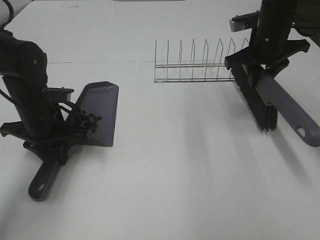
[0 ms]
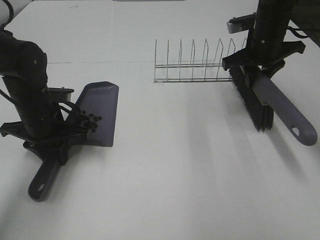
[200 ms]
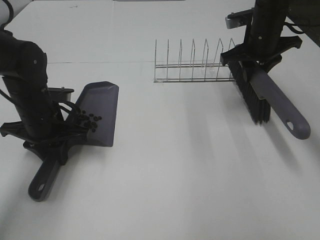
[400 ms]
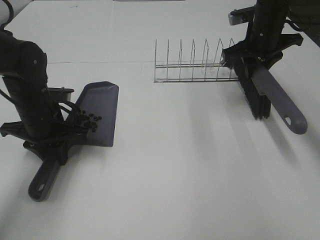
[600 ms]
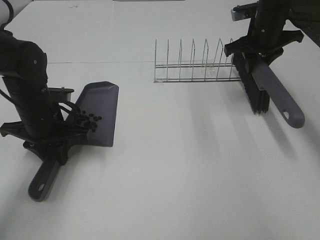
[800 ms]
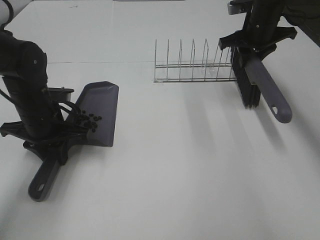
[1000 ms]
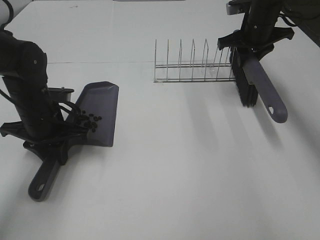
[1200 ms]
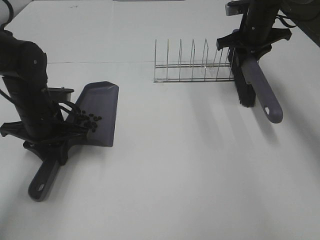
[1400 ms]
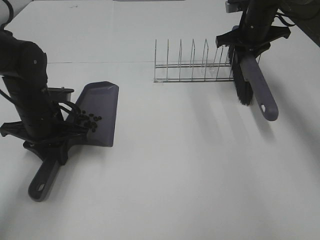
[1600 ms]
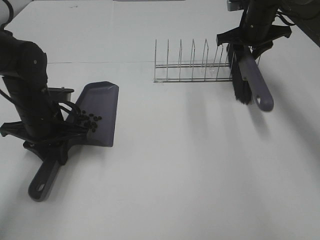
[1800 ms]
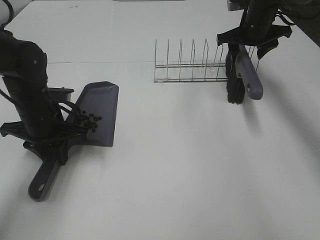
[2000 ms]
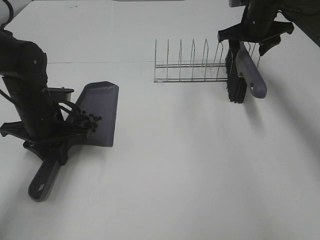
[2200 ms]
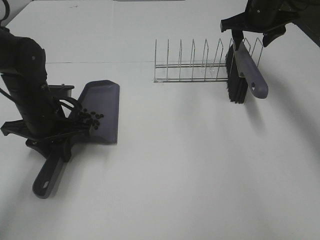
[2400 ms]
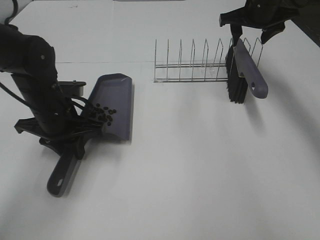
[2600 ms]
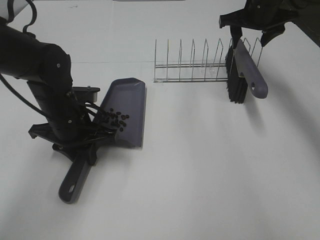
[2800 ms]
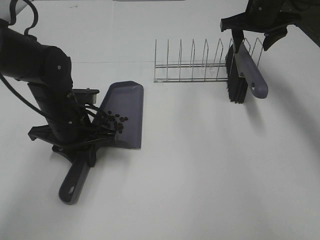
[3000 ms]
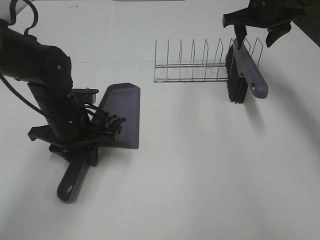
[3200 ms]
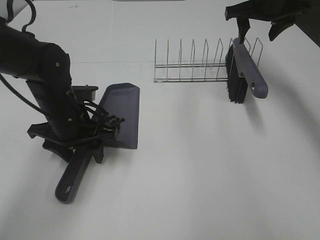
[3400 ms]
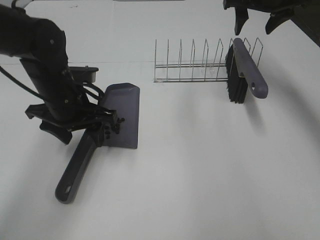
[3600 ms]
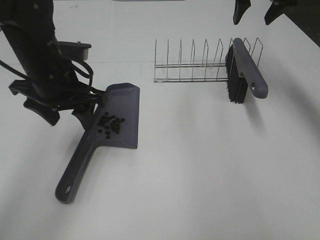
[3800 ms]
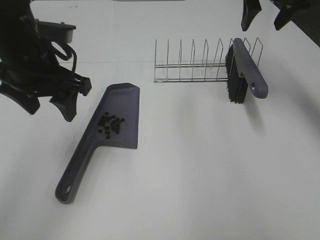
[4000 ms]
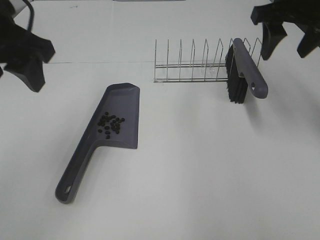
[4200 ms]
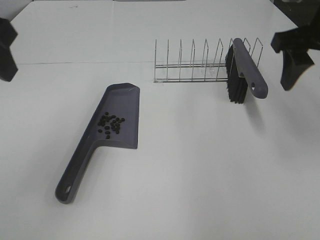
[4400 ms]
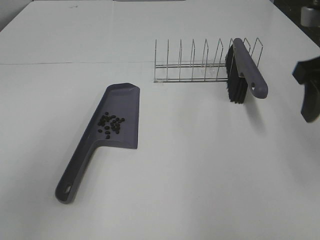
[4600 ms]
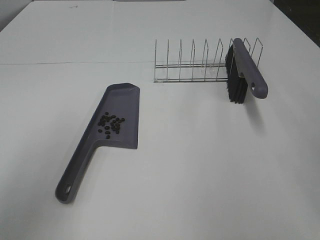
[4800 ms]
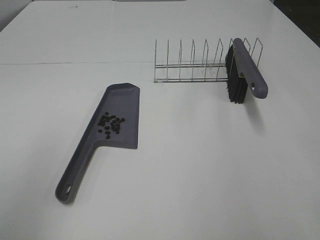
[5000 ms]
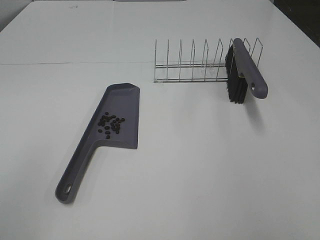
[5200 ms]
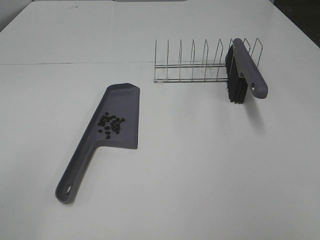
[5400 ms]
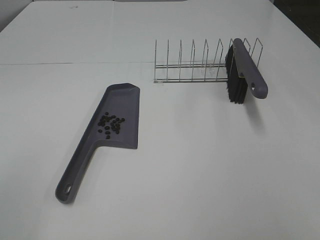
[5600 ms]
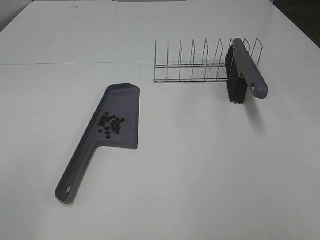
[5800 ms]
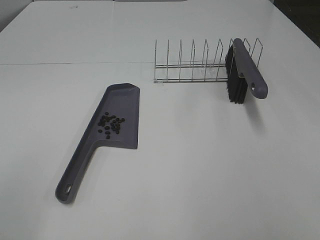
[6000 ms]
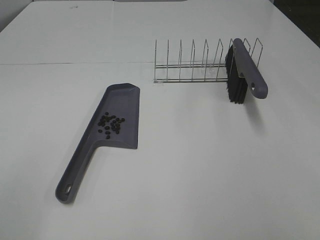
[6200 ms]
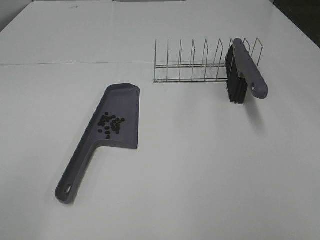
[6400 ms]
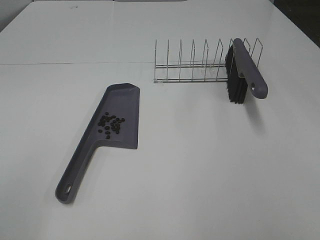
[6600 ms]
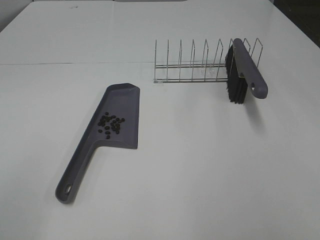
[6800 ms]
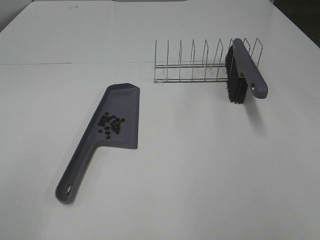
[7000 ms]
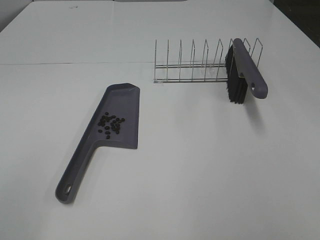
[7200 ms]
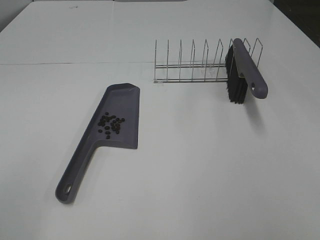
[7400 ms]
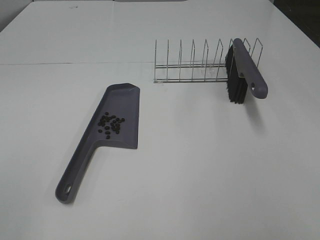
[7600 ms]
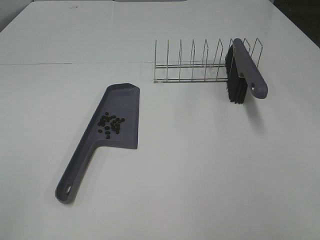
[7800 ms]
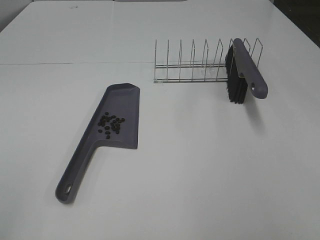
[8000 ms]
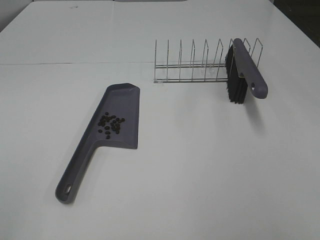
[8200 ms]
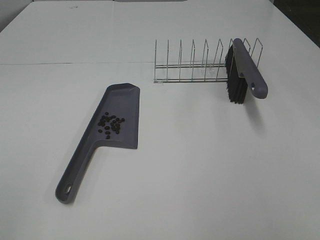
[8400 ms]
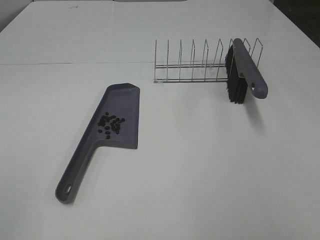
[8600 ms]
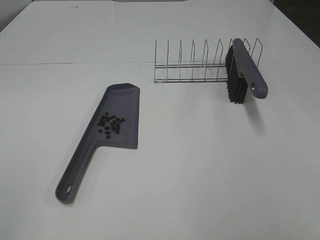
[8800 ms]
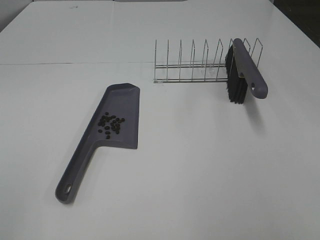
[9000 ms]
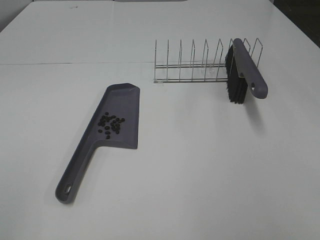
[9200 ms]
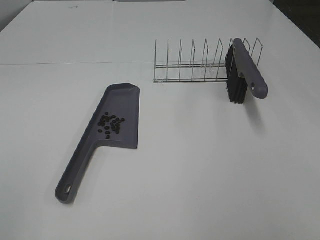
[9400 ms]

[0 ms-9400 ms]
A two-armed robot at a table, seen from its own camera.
Task of the whole recording: Sweep Coffee Bean.
Step, 0 ms to 2000 ms: Right hand:place the broom on the rack.
Step, 2200 ms to 3400 ms: Left hand:place the dustpan on the table.
0 ms to 1600 ms: The right gripper is displaced forward by roughly 10 cm.
1600 ms to 3200 ms: The right gripper goes approximately 5 cm upward, and opens up, while the left gripper ends up roughly 5 cm from where it was, and opens.
3200 ms to 4800 ms: The left gripper is displaced upward, backward and to the left by some 30 cm, and opens up. The right gripper goes about 30 cm backward.
4800 ms to 6200 ms: The left gripper moves backward and to the left, some 15 cm.

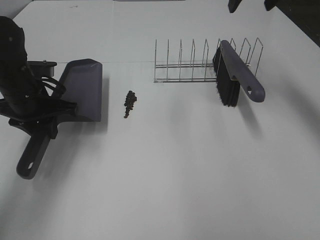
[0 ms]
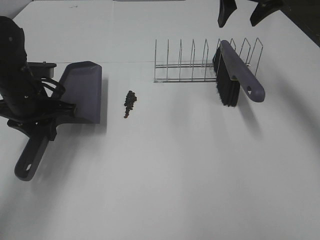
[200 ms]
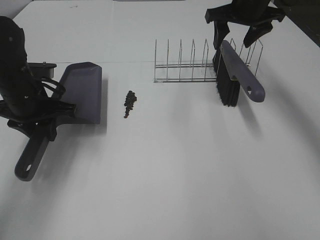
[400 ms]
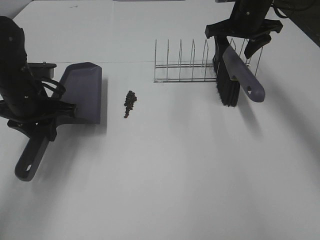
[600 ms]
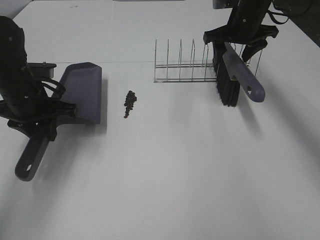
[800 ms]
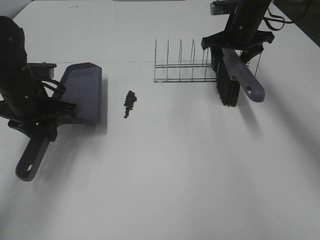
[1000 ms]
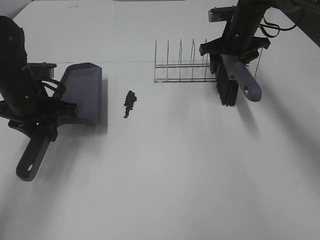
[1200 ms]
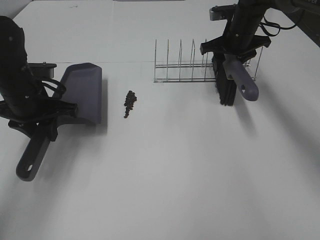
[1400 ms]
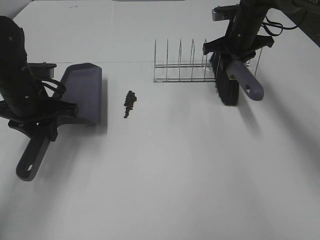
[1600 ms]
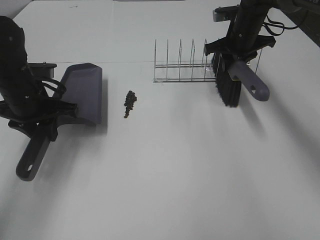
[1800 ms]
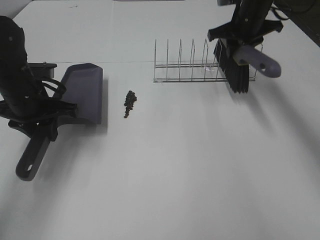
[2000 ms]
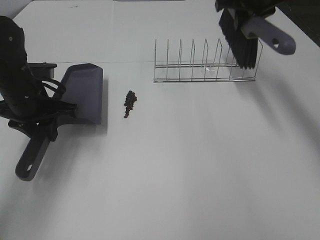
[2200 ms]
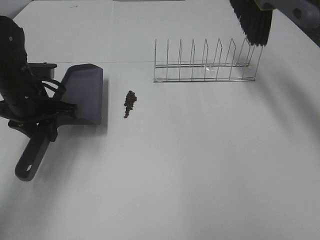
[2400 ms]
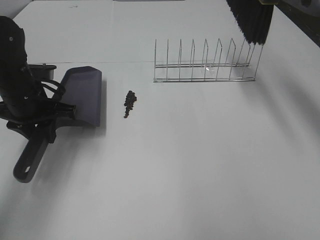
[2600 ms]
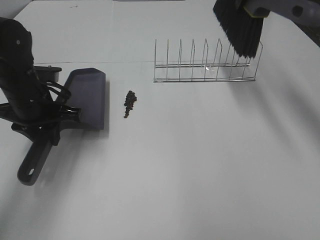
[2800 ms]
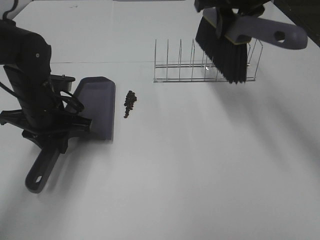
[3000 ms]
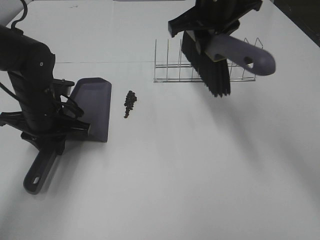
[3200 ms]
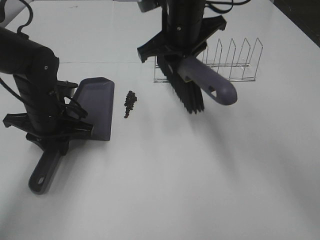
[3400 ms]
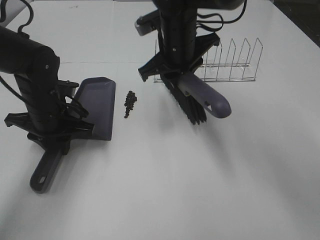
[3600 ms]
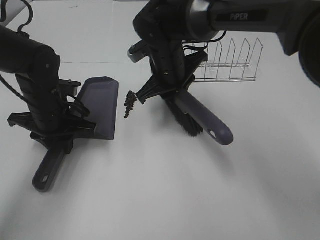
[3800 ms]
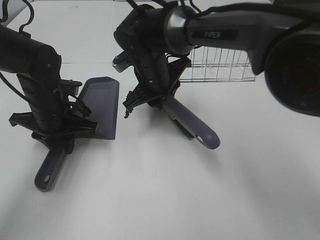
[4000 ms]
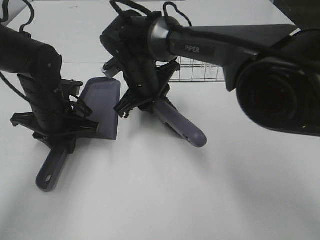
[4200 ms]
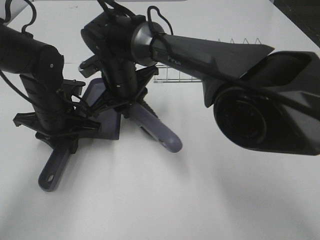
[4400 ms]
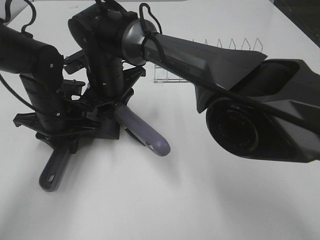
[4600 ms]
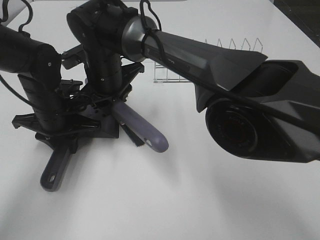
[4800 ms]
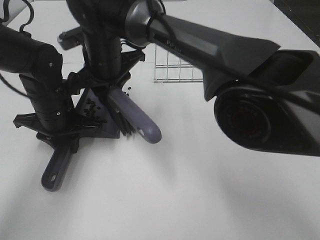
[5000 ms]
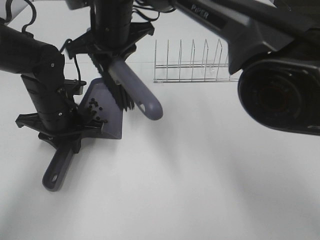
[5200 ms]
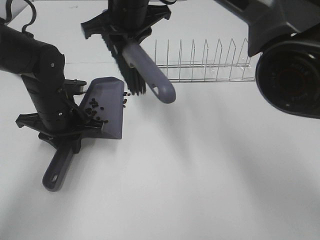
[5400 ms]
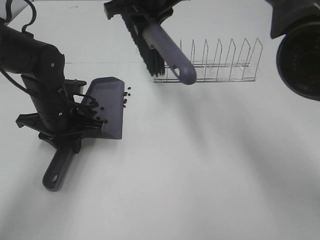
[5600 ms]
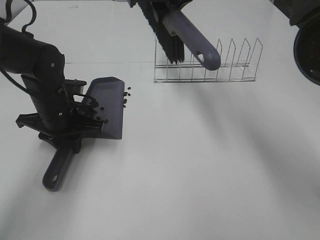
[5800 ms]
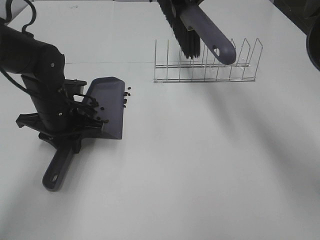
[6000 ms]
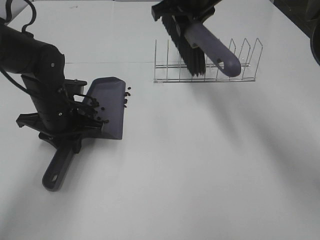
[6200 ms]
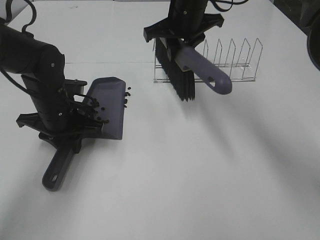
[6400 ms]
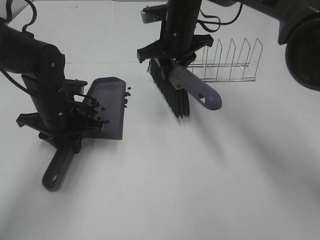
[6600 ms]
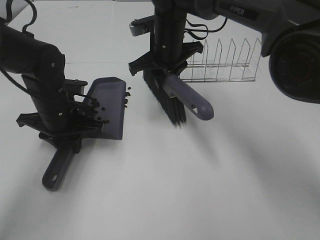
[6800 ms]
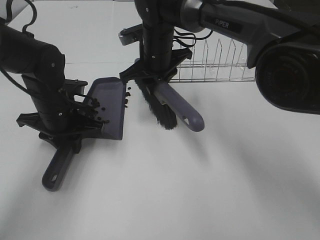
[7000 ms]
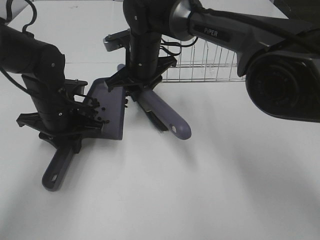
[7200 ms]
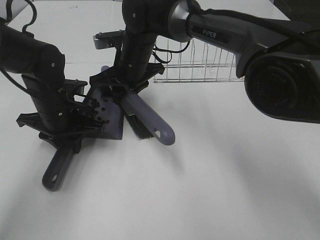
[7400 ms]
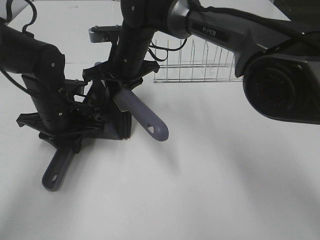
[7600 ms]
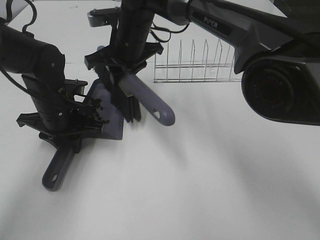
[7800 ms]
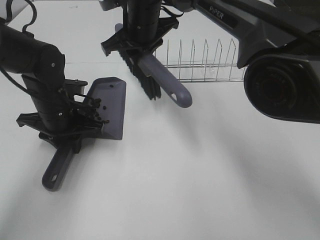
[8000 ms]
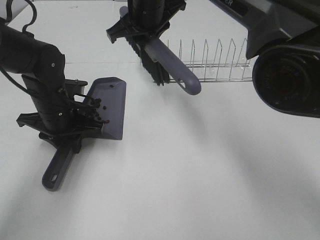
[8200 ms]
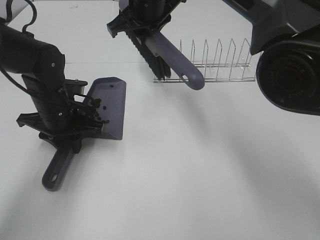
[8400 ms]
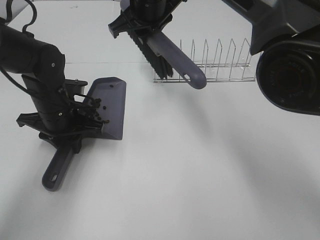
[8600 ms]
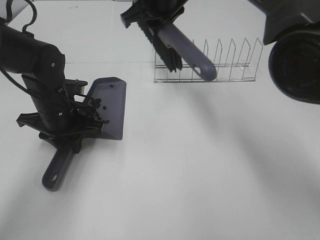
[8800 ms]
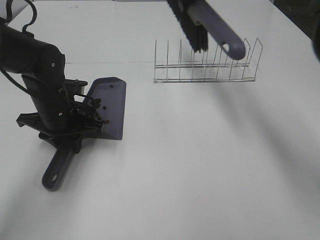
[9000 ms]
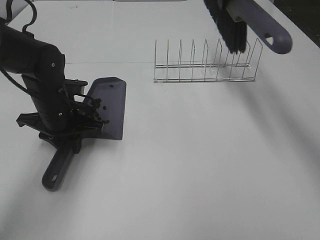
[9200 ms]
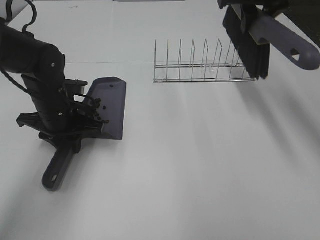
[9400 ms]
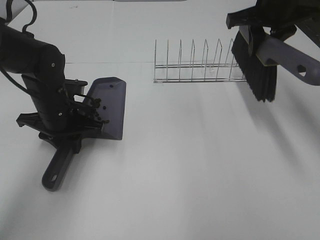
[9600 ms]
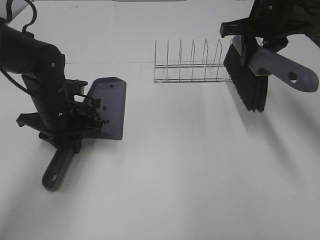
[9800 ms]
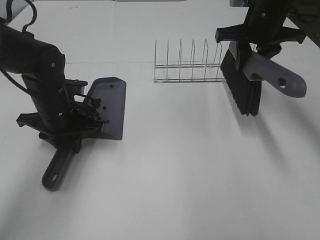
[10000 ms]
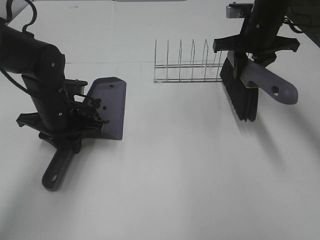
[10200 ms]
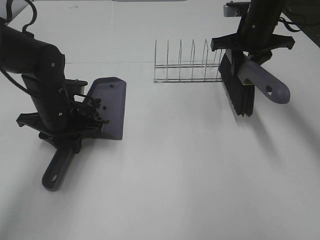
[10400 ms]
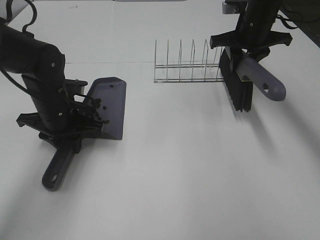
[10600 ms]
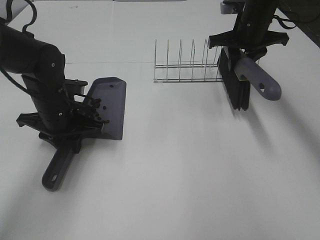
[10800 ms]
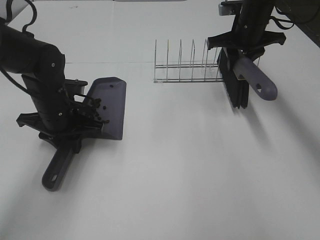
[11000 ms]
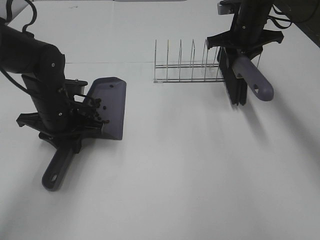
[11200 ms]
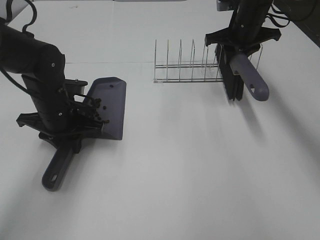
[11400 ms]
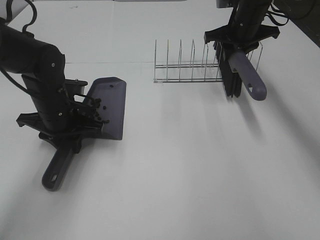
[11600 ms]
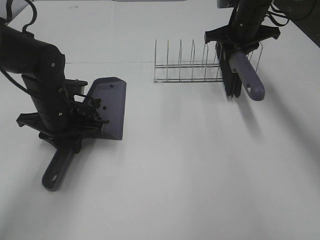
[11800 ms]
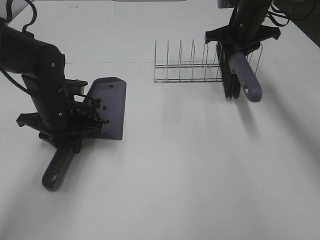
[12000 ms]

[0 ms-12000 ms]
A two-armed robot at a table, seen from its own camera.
Task of the whole recording: Sweep Coffee Bean.
Step, 0 ms to 1400 ms: Right hand:grab the broom.
Step, 1600 ms to 7800 ms: Right hand:sweep the coffee beans into the dustpan.
0 ms to 1600 ms: The right gripper is displaced downward by about 15 cm, and closes up.
1600 ms to 3000 ms: The right gripper moves upward, backward and to the left, roughly 15 cm.
3000 ms to 4400 ms: The right gripper heads to the left and downward, covering some 25 cm.
4400 ms to 6000 ms: The right gripper is displaced upward, to the right and forward by some 25 cm.
6000 ms to 7600 ms: The right gripper moves downward and to the left, roughly 20 cm.
7600 ms to 9000 ms: The right gripper travels upward and to the right by approximately 20 cm.
9000 ms to 10400 ms: The right gripper goes roughly 15 cm to the right and downward.
10400 ms to 12000 ms: The right gripper shifts by roughly 5 cm.
